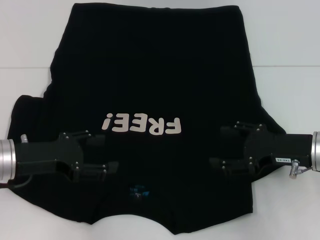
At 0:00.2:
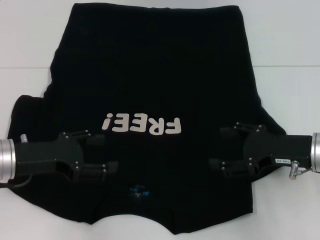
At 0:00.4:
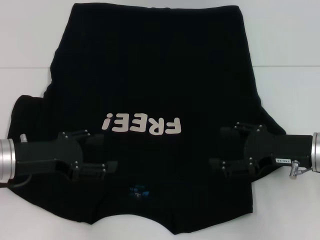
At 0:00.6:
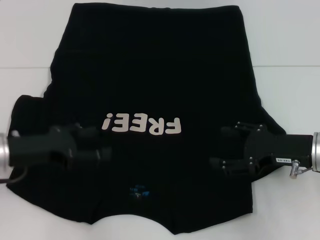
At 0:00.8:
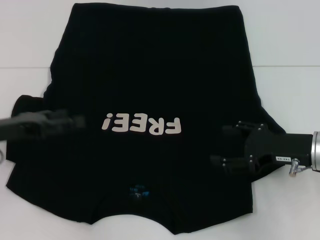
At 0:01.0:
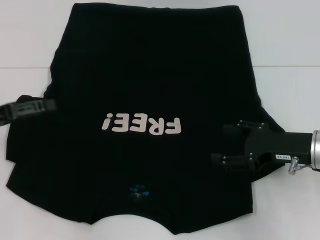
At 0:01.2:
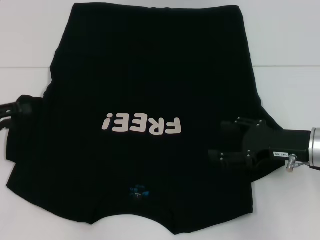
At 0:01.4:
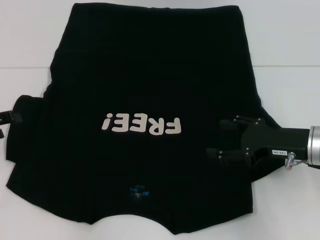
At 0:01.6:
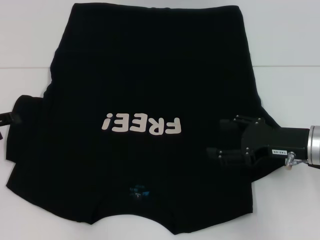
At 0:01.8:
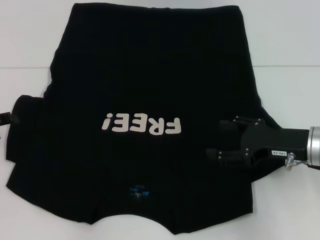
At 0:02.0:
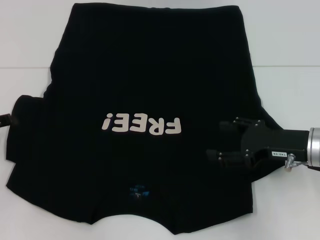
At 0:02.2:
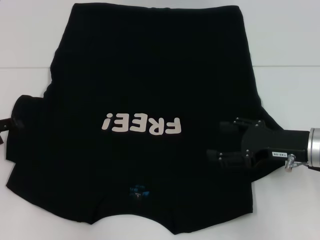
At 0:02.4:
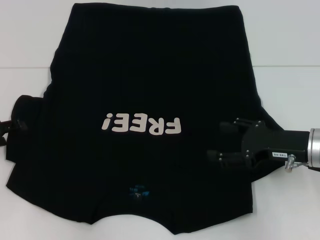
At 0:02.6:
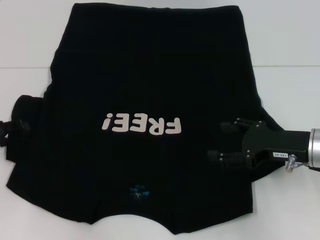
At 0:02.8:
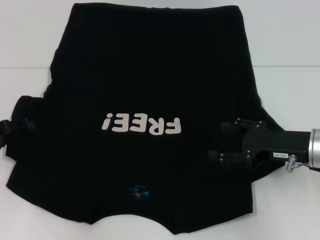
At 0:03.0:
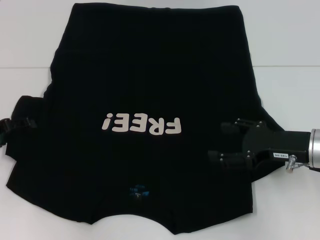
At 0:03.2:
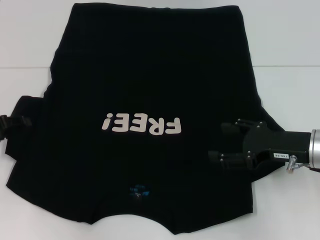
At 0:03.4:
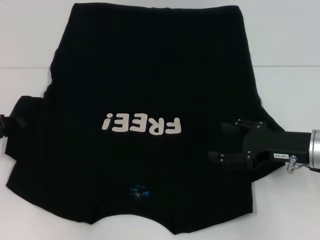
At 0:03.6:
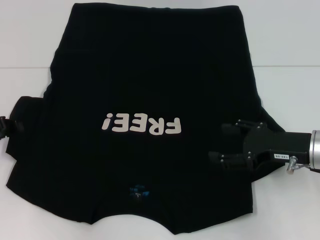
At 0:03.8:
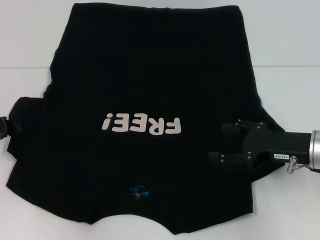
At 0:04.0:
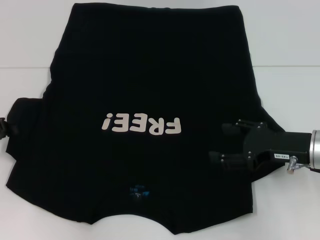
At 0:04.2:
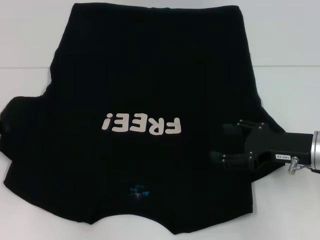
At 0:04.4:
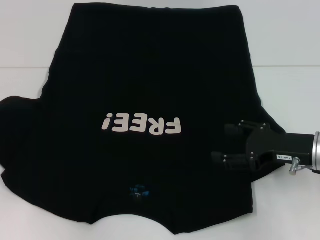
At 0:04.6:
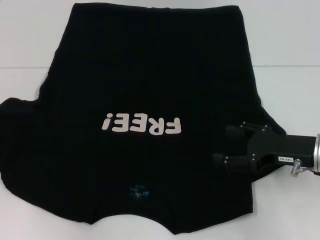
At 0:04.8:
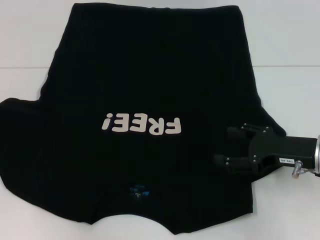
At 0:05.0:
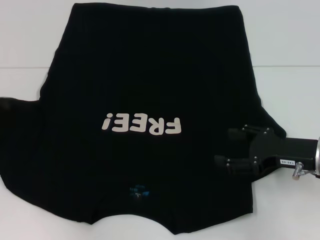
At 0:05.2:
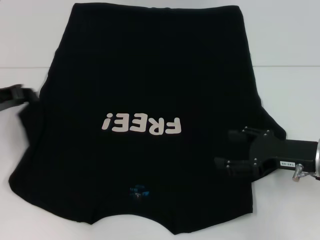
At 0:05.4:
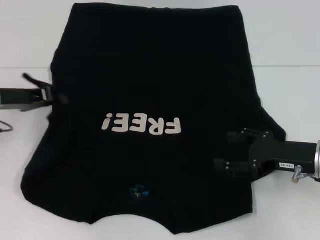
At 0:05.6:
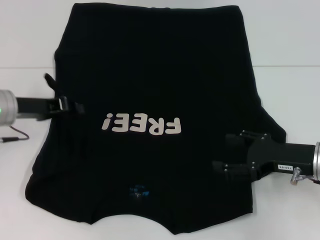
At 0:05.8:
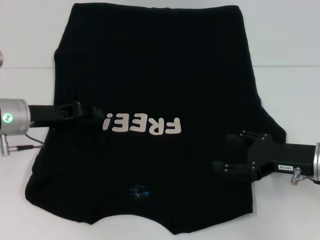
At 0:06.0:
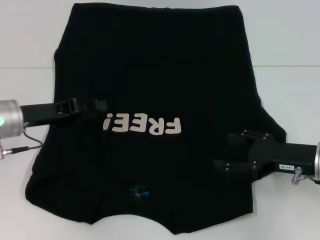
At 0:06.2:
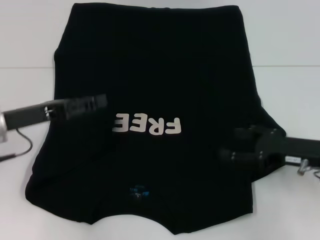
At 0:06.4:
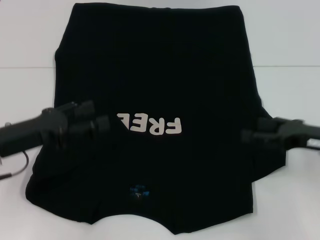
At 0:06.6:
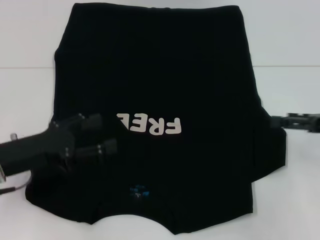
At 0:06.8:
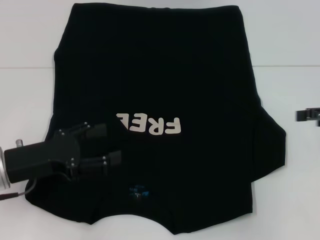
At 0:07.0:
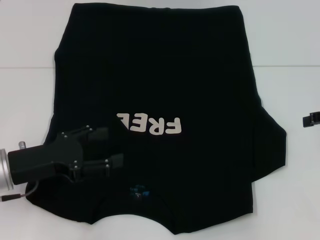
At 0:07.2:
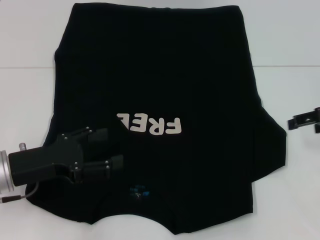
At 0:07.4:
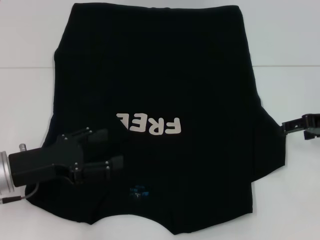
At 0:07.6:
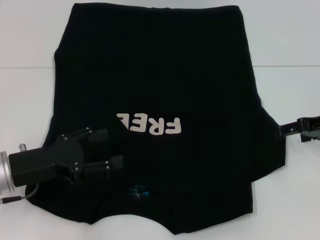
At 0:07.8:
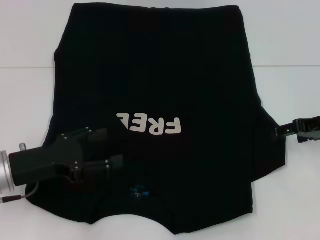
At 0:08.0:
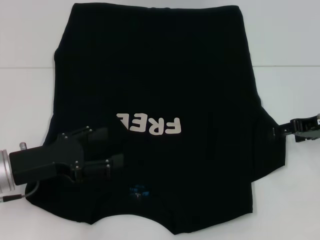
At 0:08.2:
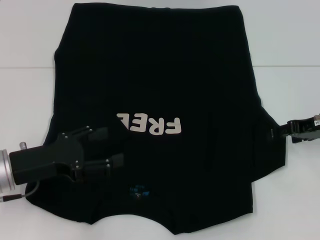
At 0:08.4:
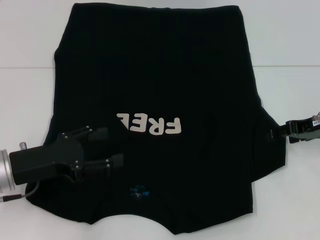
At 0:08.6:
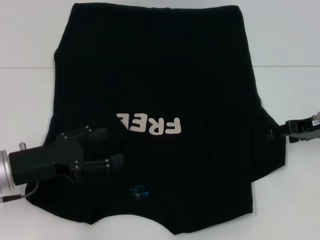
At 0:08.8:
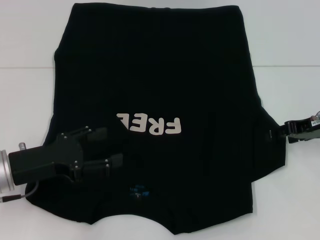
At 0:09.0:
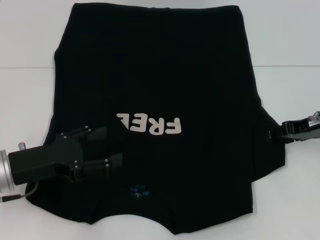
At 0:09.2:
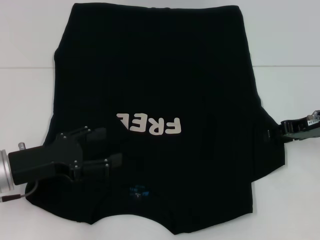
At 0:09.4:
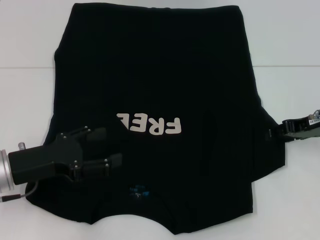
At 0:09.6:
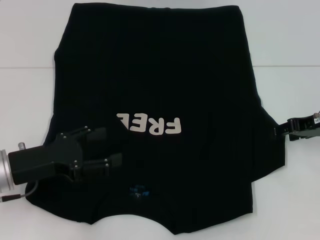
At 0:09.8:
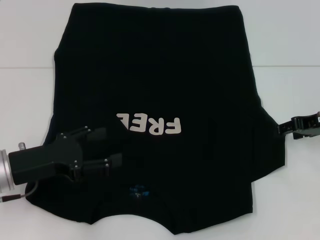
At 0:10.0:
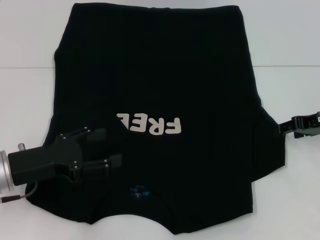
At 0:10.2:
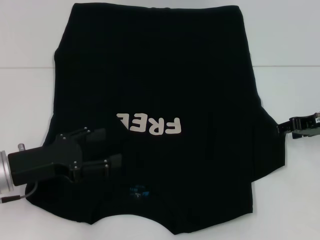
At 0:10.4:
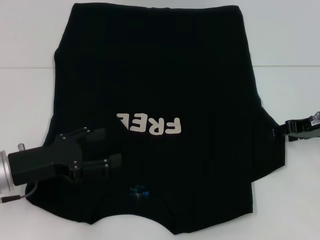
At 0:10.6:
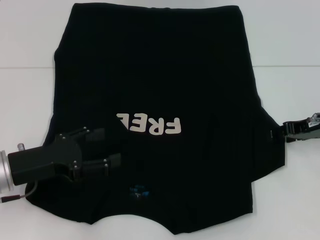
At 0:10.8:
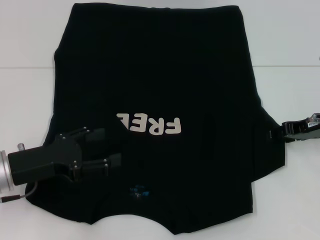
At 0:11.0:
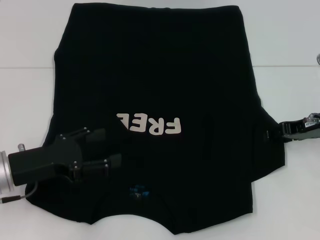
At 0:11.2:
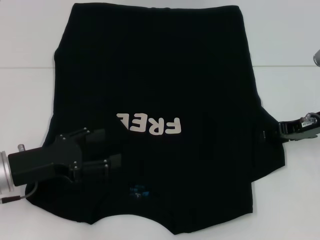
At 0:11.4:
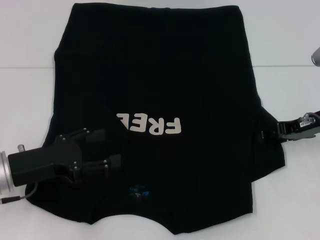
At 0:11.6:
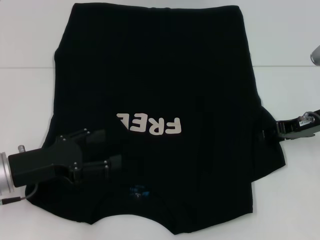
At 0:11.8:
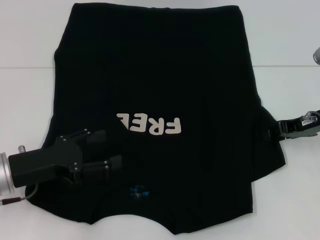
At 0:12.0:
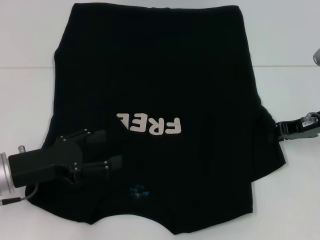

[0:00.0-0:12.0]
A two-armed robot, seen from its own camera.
Step, 0:00.0 to 0:06.4: Fold the bottom left sleeve with your left hand.
0:00.0 to 0:01.6: The left gripper moves to the left, some 10 cm.
0:01.6 to 0:03.0: There are only small adjustments of the grippers.
0:03.0 to 0:04.4: The left gripper closes.
0:04.4 to 0:06.0: The left gripper moves to the right, about 10 cm.
0:06.0 to 0:07.6: The left gripper goes roughly 10 cm backward, and opens up. The right gripper is displaced forward, upward and to the right by roughly 10 cm.
0:07.6 to 0:09.0: The grippers stay close to where they were, moving slightly.
0:10.4 to 0:12.0: The grippers move only a little.

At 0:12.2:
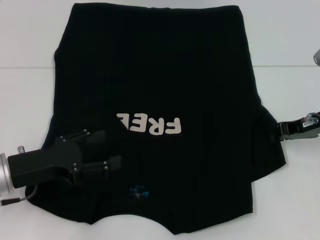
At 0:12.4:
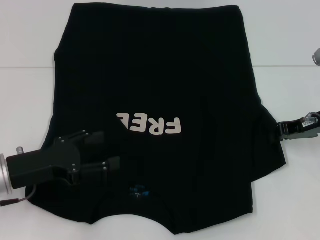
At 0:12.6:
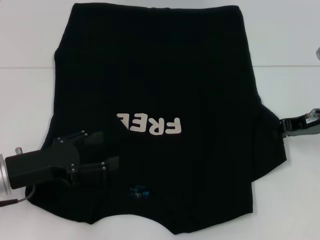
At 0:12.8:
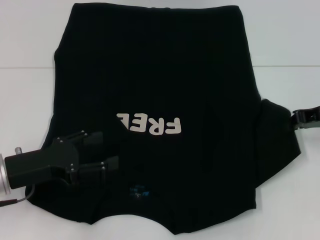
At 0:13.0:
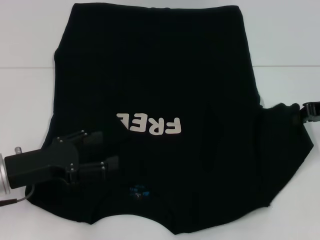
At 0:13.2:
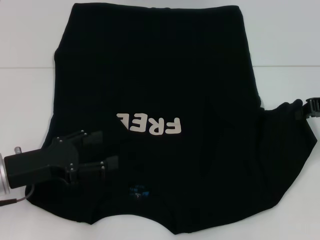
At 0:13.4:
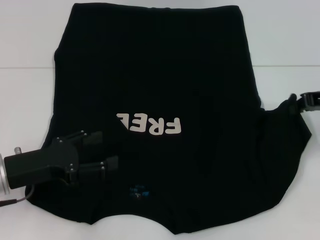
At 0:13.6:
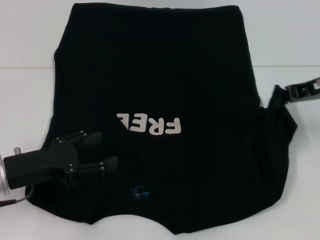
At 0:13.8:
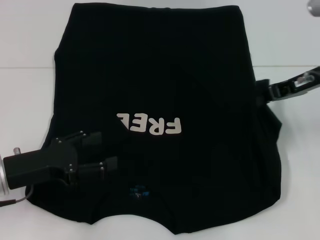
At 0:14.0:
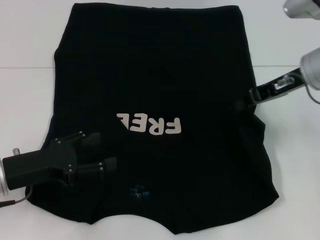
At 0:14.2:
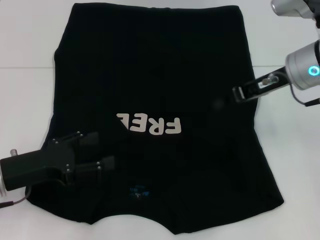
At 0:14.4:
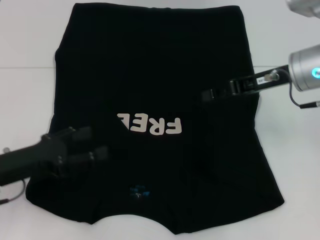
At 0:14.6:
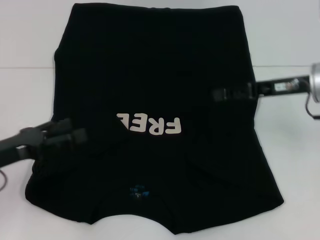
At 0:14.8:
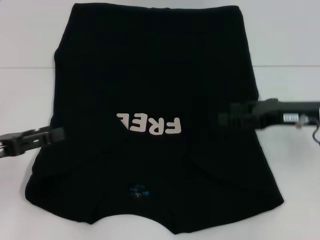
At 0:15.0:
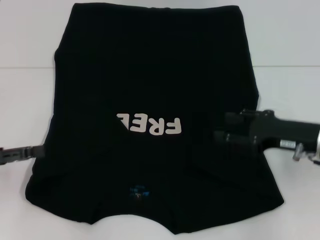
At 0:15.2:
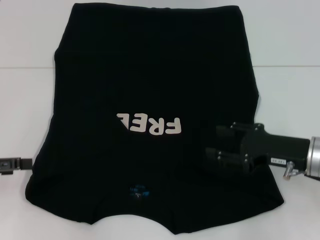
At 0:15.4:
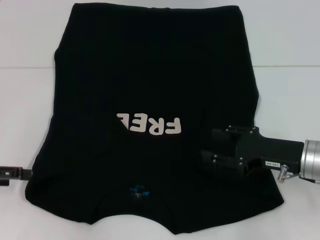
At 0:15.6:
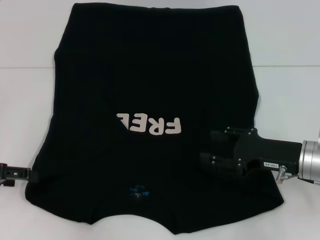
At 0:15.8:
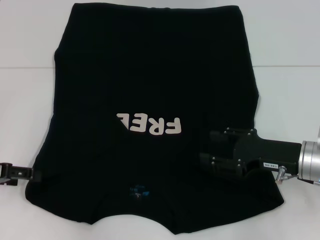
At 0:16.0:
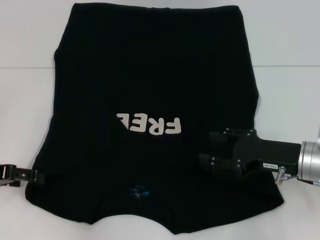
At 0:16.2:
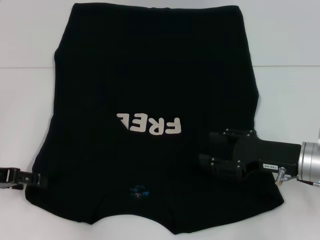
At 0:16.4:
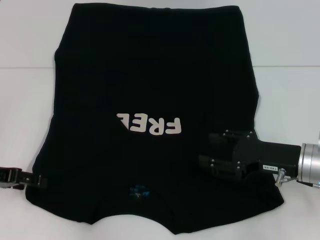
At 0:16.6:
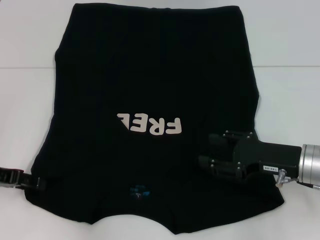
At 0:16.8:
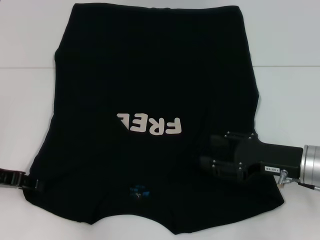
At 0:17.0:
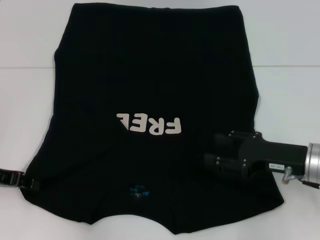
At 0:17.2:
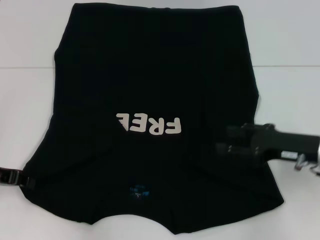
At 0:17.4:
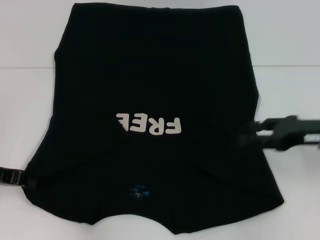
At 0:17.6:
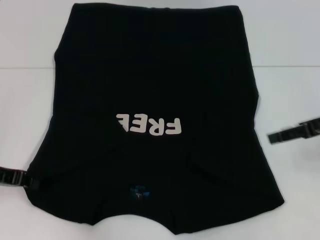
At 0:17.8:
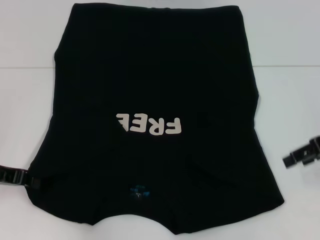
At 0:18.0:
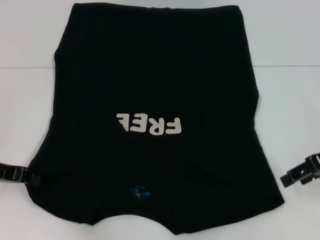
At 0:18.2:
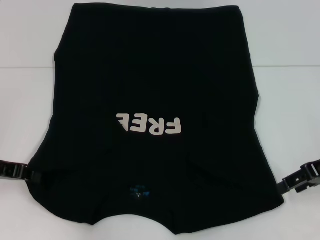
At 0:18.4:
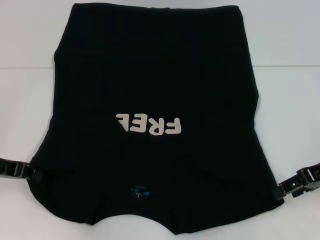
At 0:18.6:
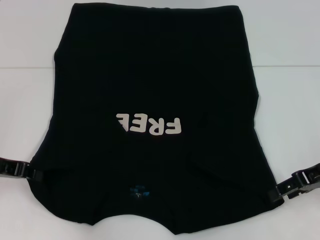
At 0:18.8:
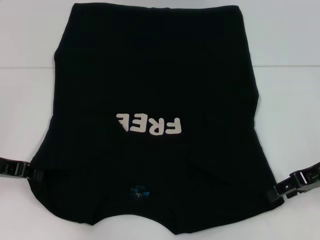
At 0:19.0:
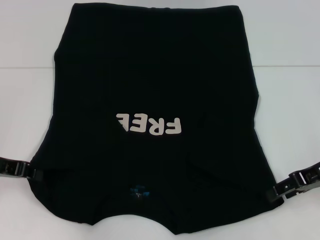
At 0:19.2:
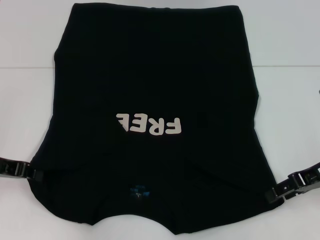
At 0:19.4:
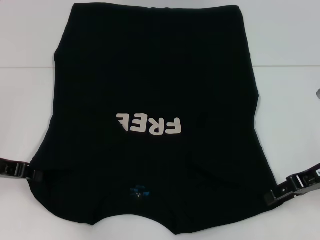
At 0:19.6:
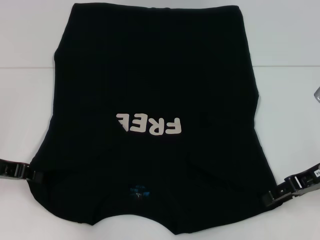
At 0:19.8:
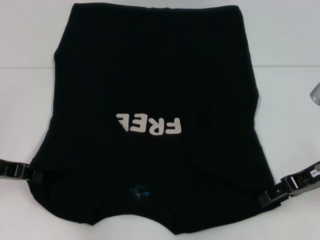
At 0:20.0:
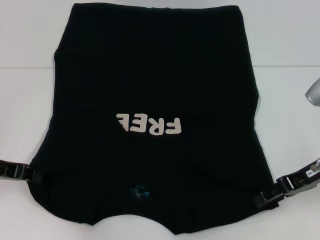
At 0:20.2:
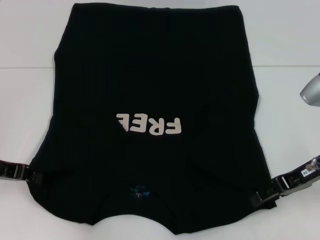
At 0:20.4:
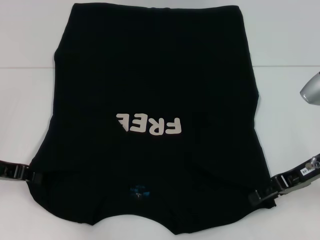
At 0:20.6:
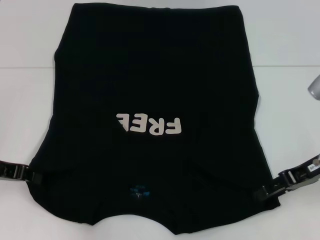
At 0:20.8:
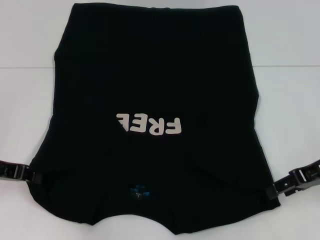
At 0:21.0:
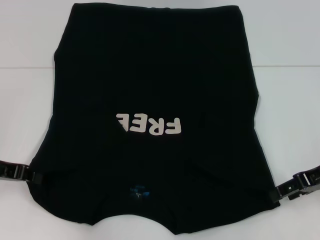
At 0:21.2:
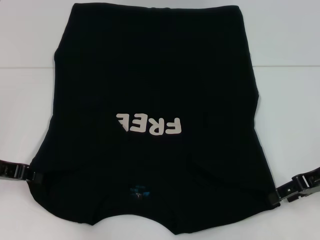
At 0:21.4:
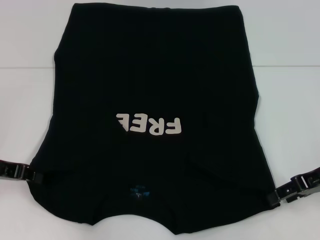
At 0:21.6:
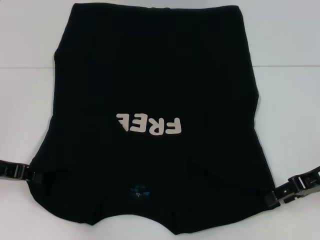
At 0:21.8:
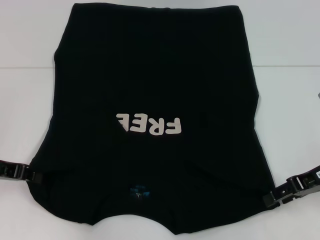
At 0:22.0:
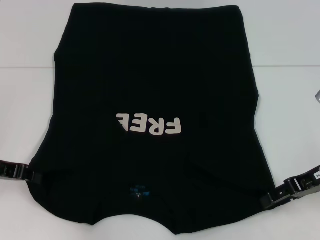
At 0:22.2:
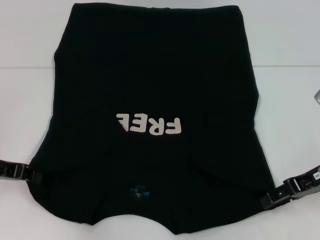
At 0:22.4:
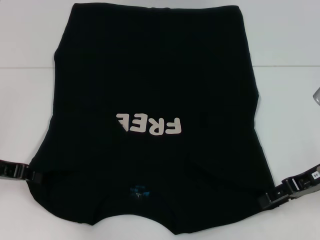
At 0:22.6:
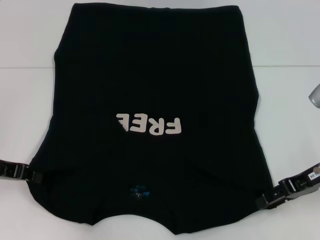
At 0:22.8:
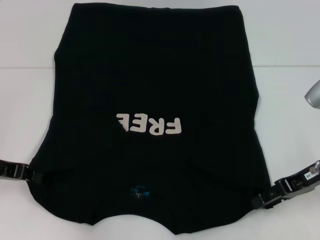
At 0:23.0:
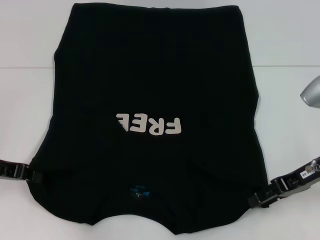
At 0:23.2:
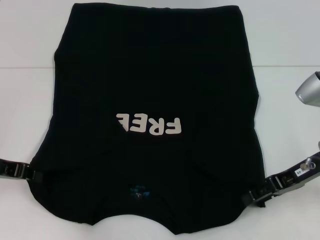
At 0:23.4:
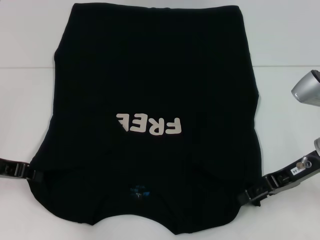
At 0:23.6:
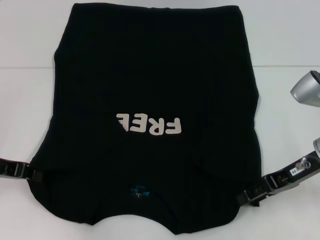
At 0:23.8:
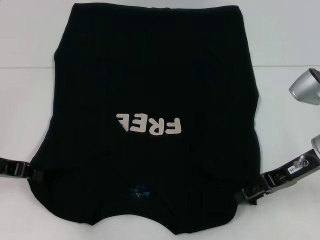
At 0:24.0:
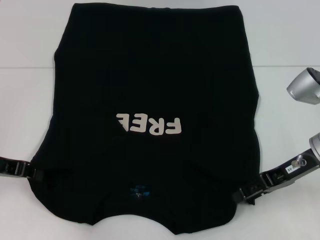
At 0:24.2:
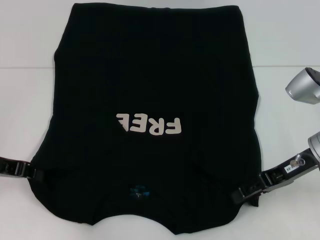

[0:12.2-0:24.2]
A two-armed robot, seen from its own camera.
Step, 0:12.2 to 0:14.8: Fold the bottom right sleeve with your right hand.
0:12.2 to 0:13.8: The right gripper is displaced upward by some 10 cm.
0:13.8 to 0:15.2: The right gripper moves downward and backward, roughly 15 cm, and opens its fingers. Meanwhile the left gripper moves to the left, some 10 cm.
0:15.2 to 0:16.6: The left gripper ends up roughly 5 cm from where it was.
0:16.6 to 0:18.2: The right gripper moves upward and to the right, roughly 10 cm, while the left gripper closes up.
0:18.2 to 0:22.6: The grippers stay close to where they were, moving slightly.
0:22.6 to 0:24.2: The grippers stay close to where they were, moving slightly.
